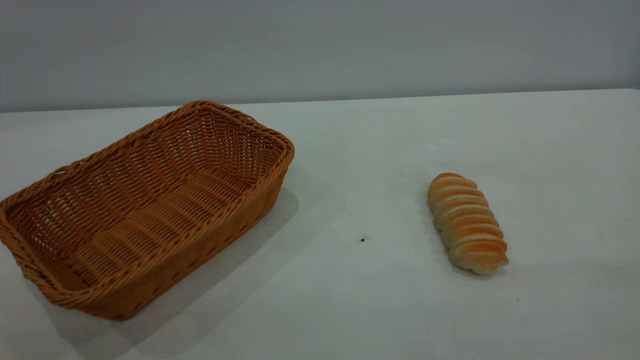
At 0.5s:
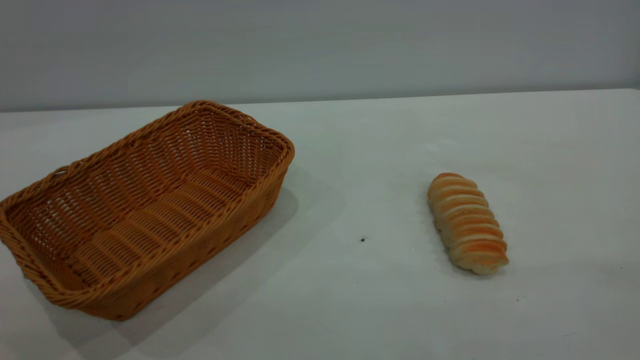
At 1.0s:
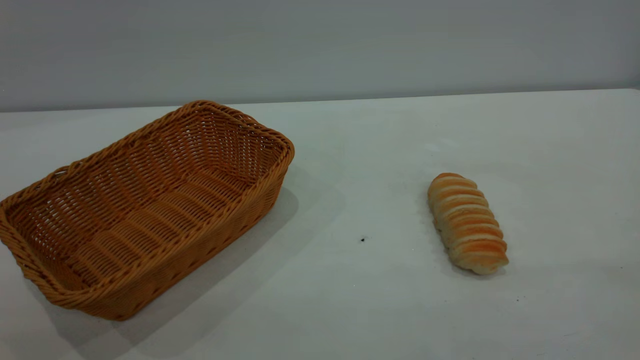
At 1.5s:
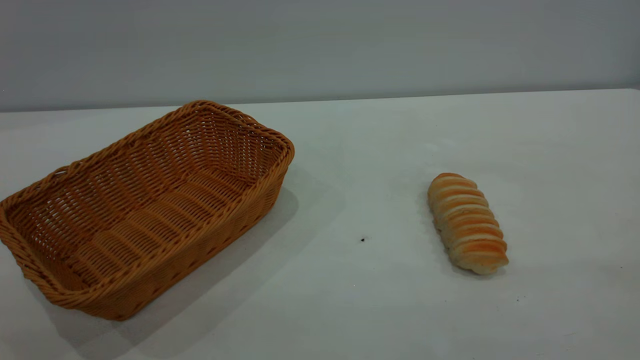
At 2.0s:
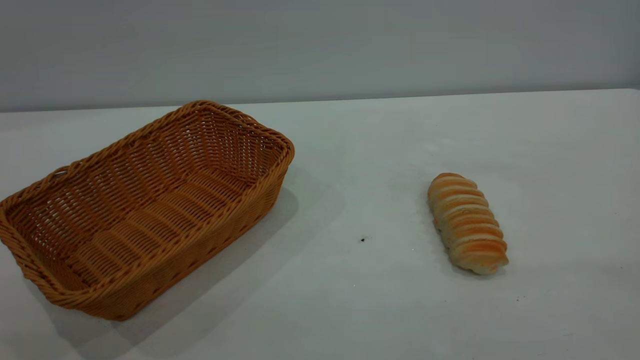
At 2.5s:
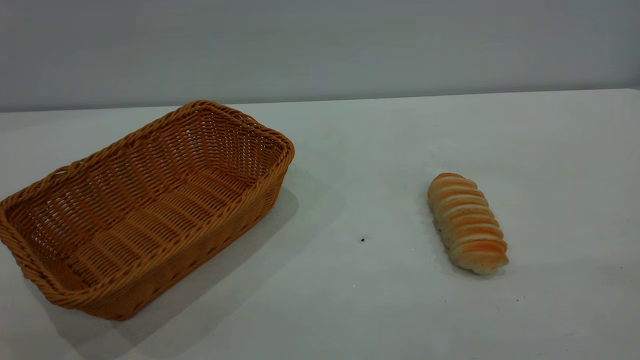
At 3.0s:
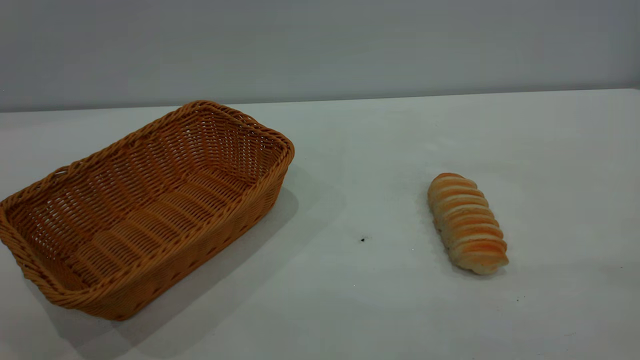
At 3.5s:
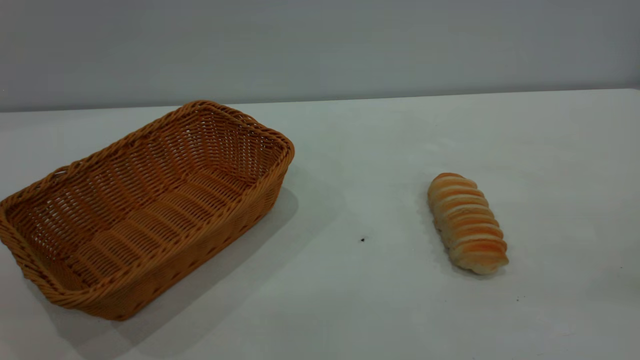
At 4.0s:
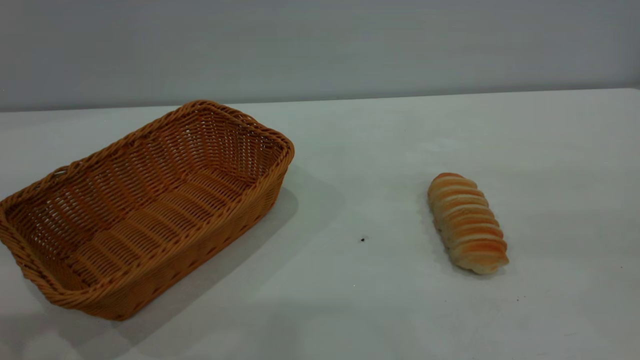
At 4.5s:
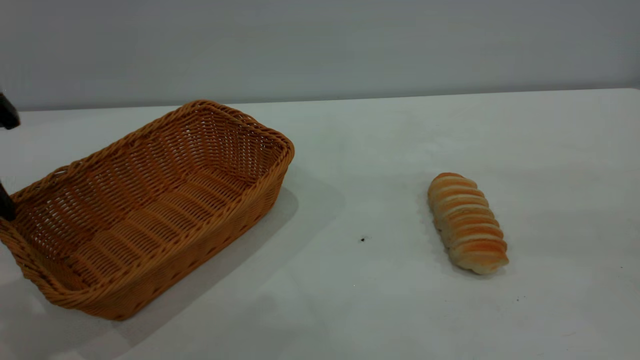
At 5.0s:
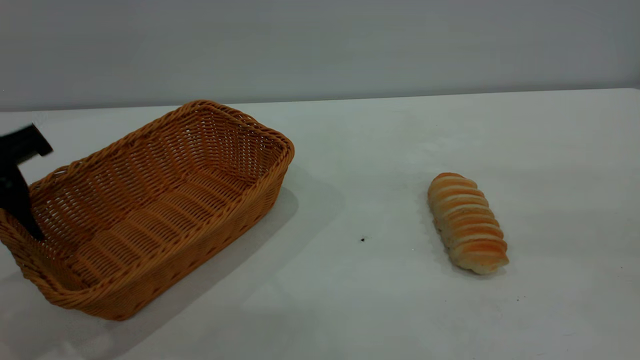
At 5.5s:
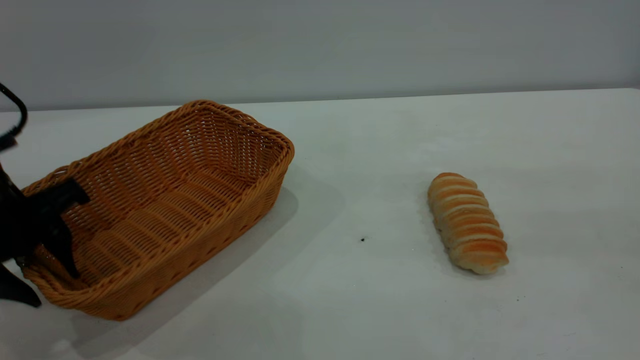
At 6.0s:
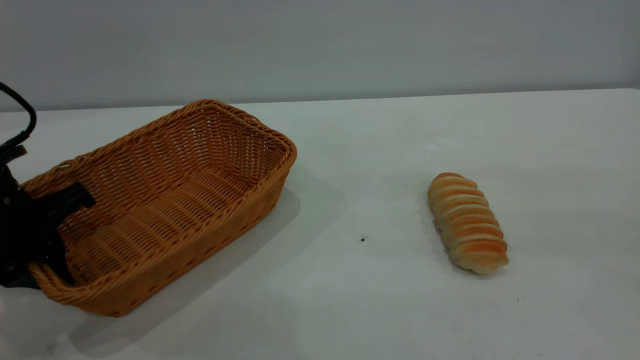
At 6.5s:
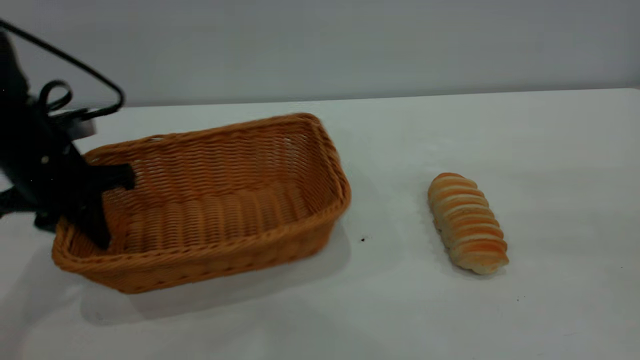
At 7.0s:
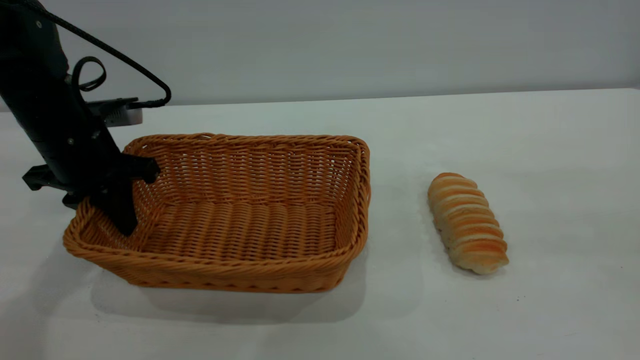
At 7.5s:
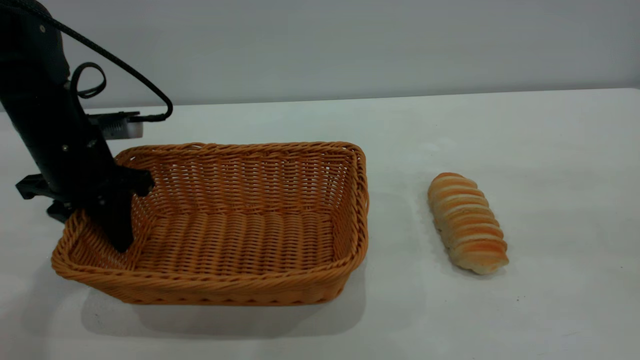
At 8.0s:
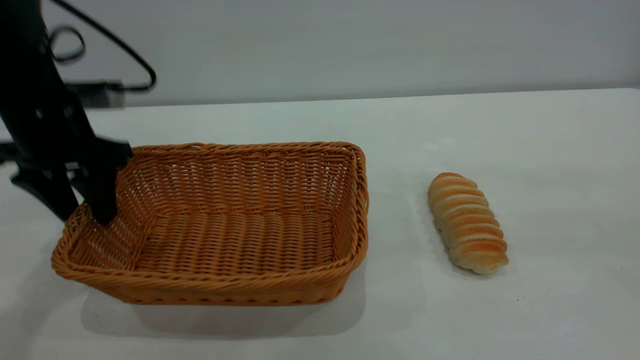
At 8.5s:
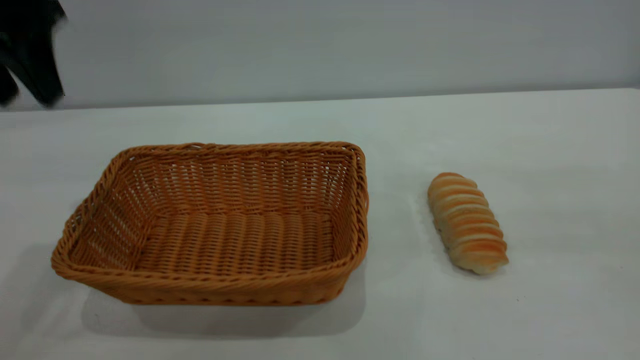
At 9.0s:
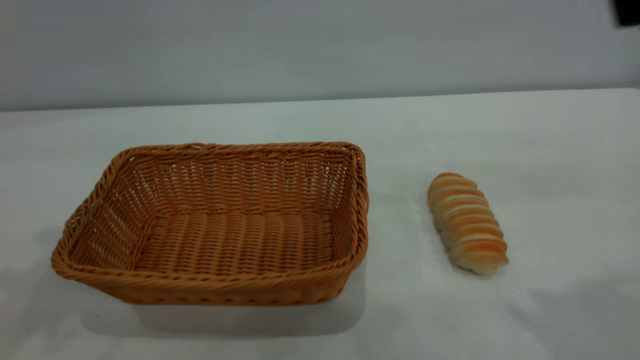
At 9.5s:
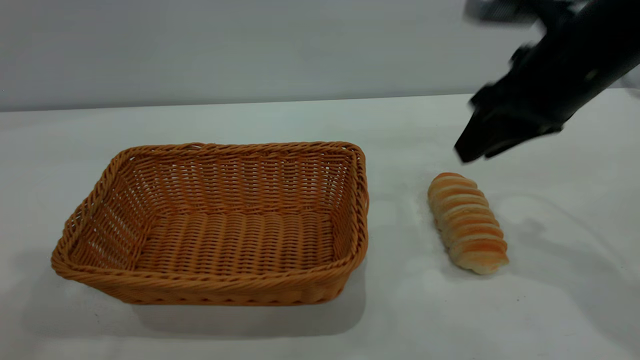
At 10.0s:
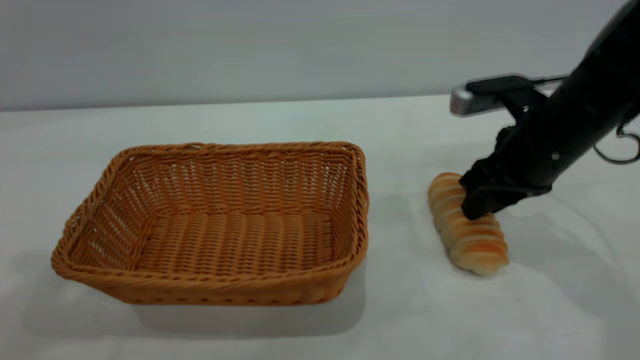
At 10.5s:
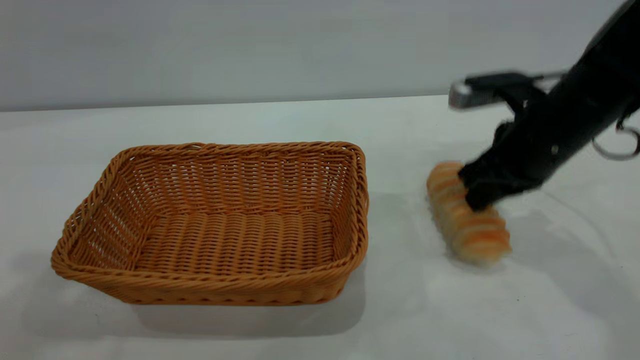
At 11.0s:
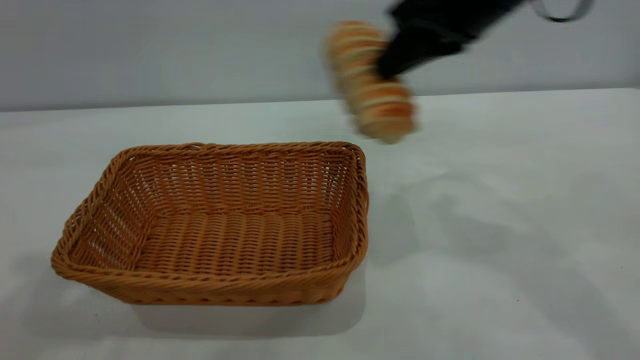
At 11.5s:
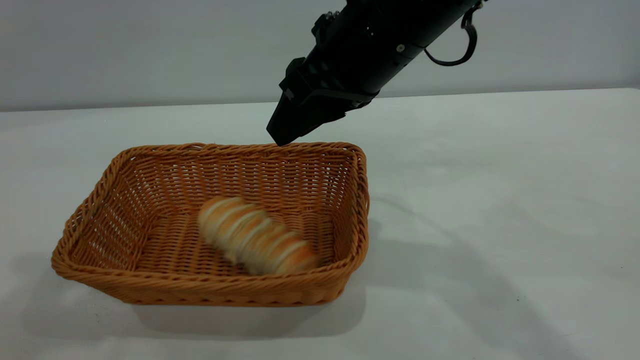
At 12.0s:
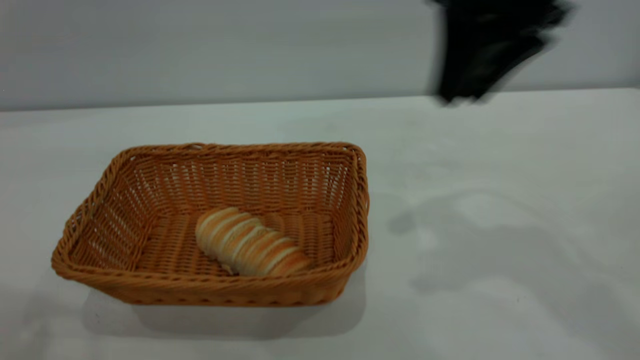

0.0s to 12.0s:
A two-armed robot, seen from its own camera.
Task of the whole recording: One hand grasps the yellow basket and places it in the middle of the table, while the other hand picks up the long bread and puts it into the yellow basket.
Step, 0.0s to 8.0s: Move the basket to the center of view.
Step, 11.0s to 11.5s: place the bread into the basket.
0.0s to 2.0s: Both grippers stay put.
4.0s to 6.0s: The left gripper is displaced downward and forward by about 20 cm, and closes.
6.0s to 8.0s: The left gripper is displaced forward and upward by roughly 10 cm, and opens up.
8.0s to 10.0s: The left gripper goes roughly 30 cm upward and backward. The right gripper goes about 35 cm forward and downward.
10.0s to 12.0s: The left gripper moves about 5 cm, while the right gripper goes about 20 cm upward, and closes, then reopens.

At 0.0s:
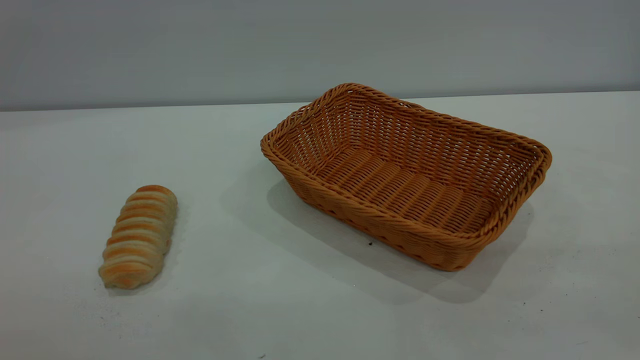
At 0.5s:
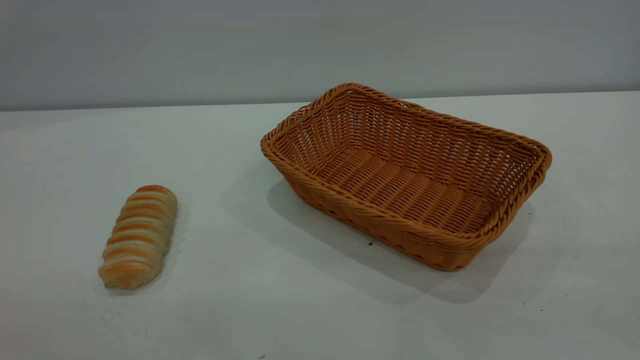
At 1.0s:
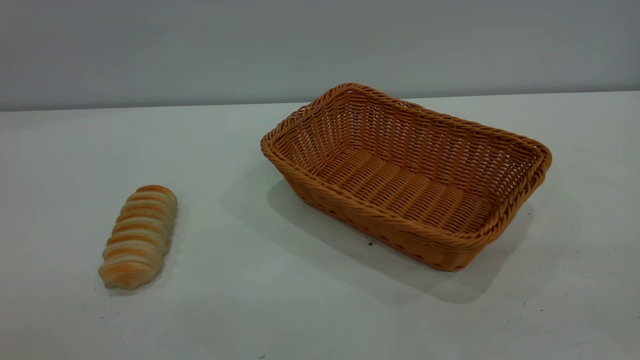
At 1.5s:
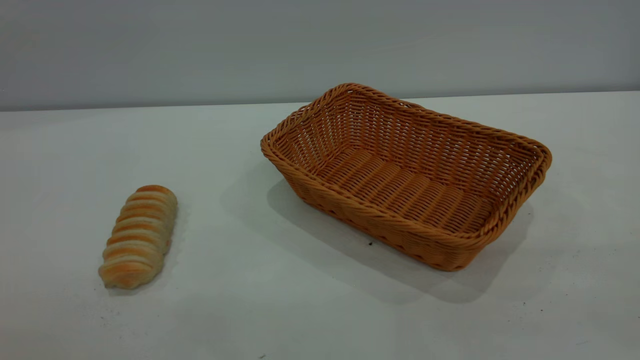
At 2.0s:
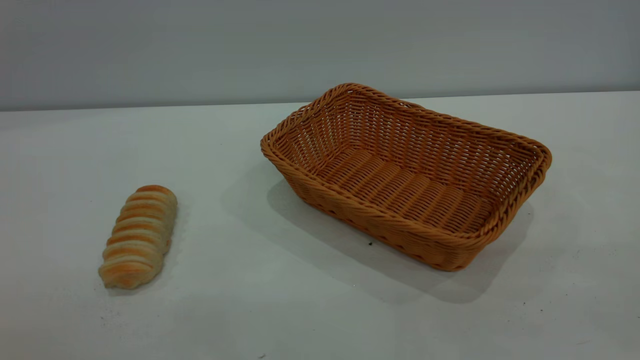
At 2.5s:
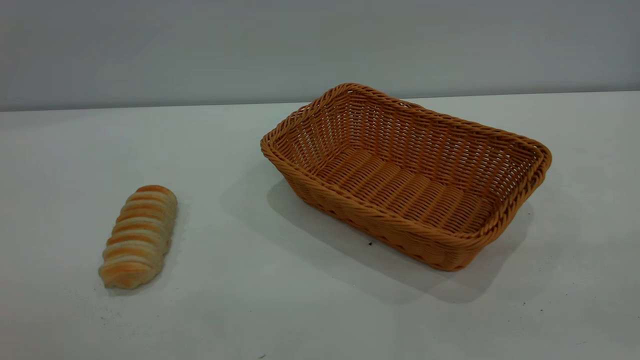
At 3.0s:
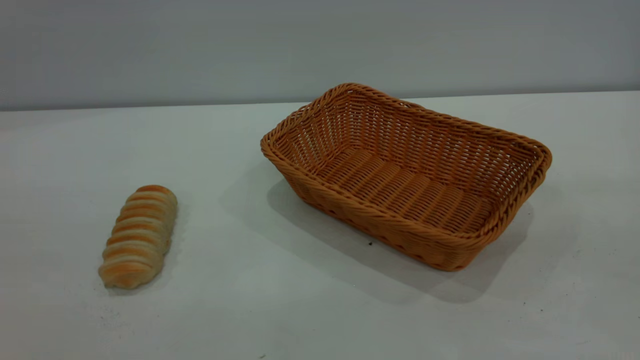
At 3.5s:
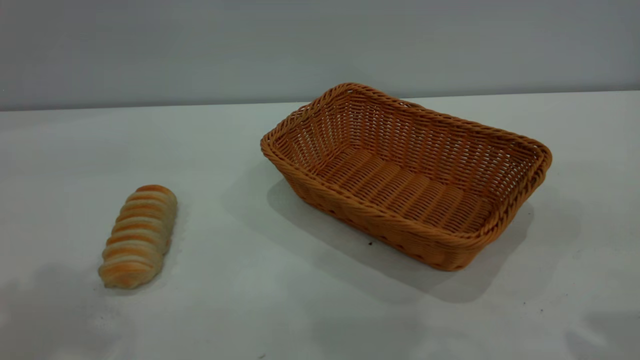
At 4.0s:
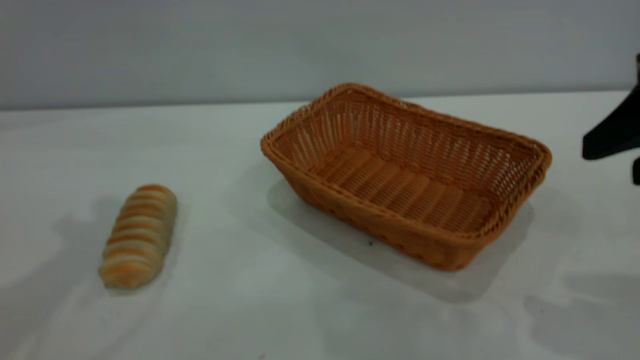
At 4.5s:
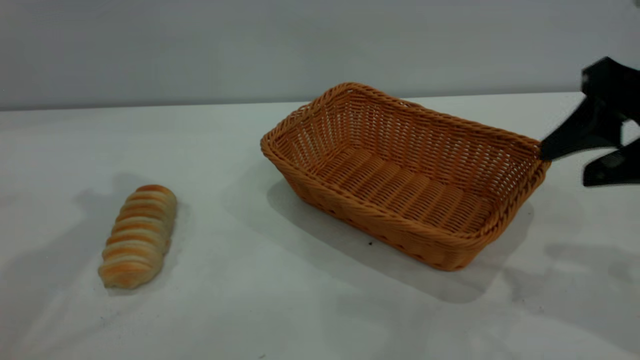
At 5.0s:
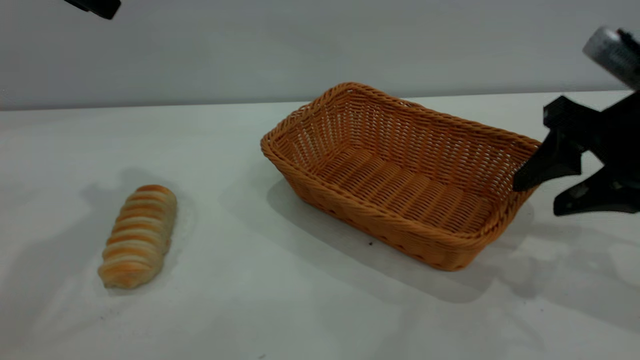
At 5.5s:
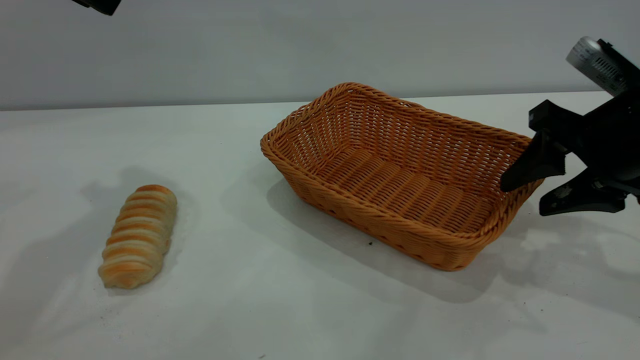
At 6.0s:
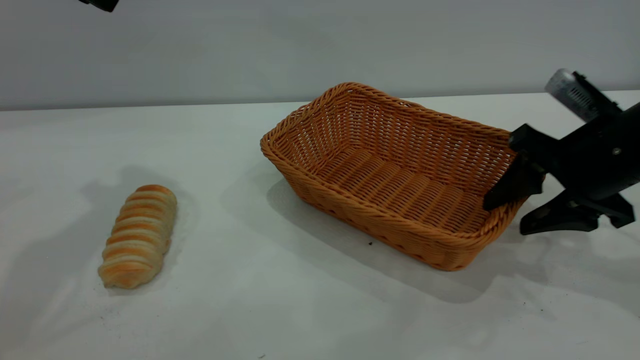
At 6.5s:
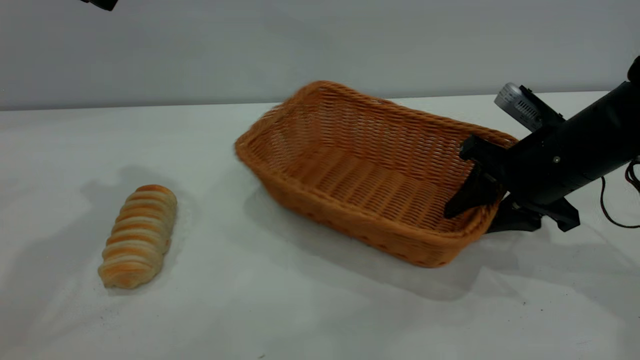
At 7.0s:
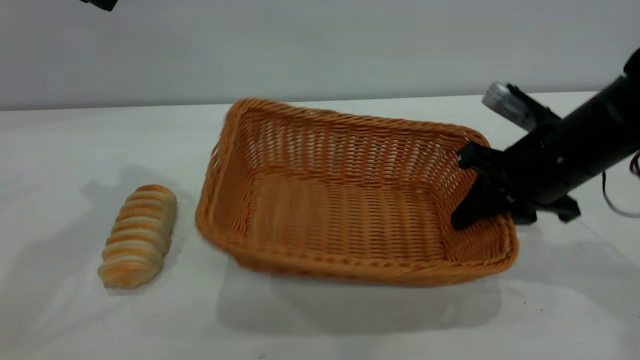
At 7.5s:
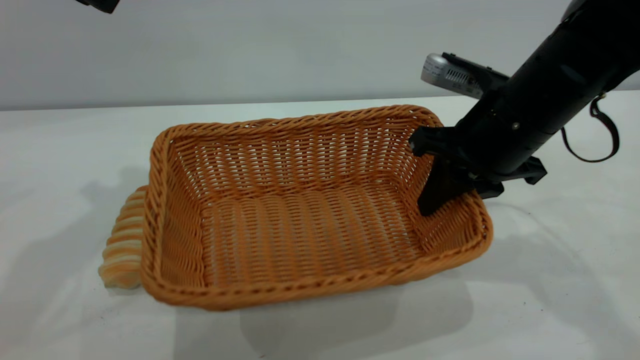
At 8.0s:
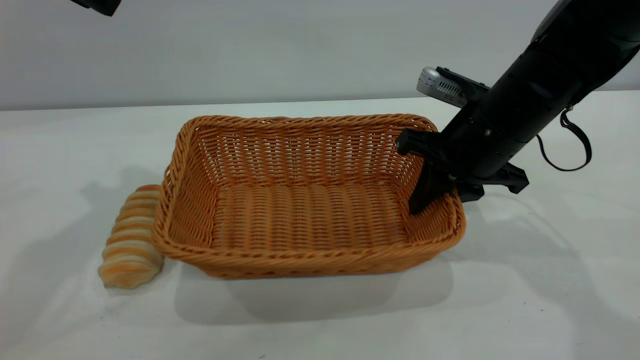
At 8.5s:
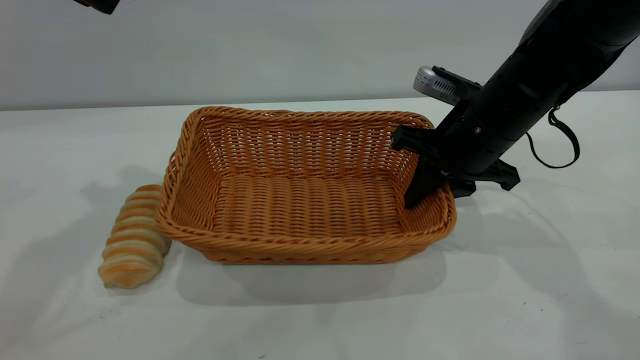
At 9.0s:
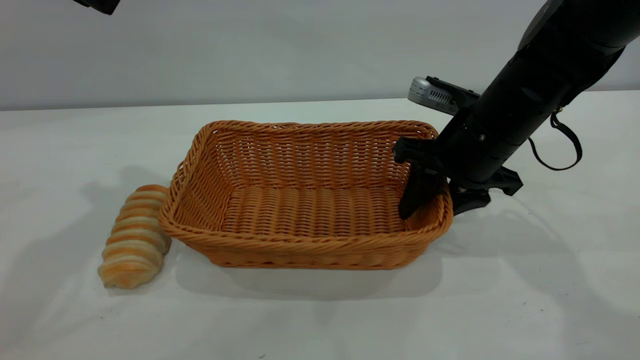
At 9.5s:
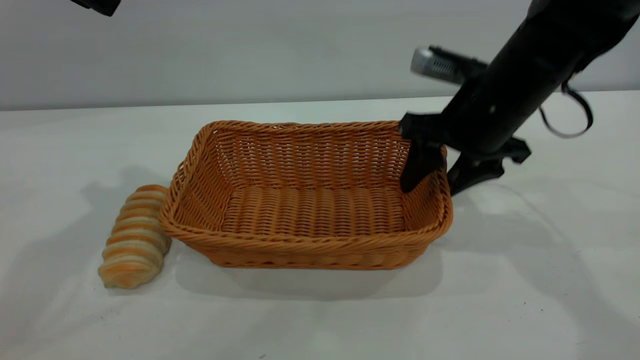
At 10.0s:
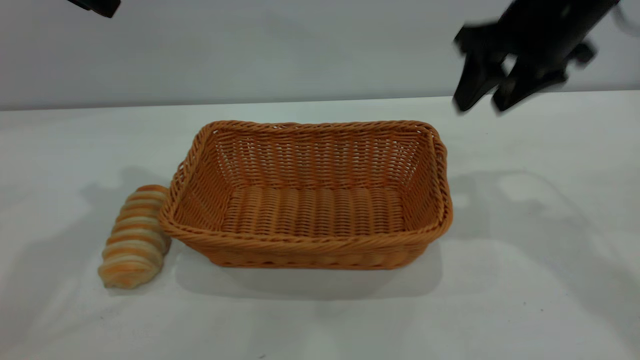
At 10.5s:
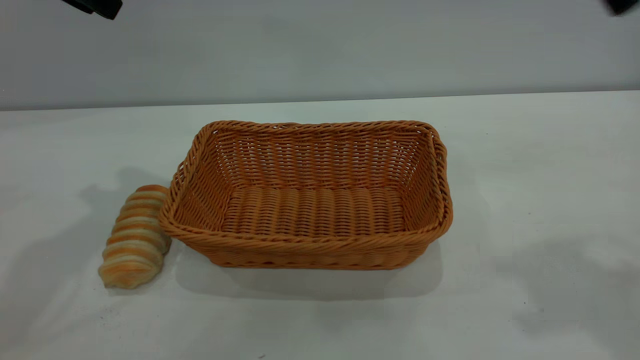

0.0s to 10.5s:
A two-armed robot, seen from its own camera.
Task of the whole recording: One hand grasps the yellow basket and places it in the middle of the table, while the other hand picks up the long bread and puts it into the yellow basket.
Step, 0.0s to 9.5s: Move the basket to the center of view.
0.0s to 2.0s: Both grippers stay put.
2.0s to 4.0s: The right gripper heads forward and downward, covering approximately 25 cm, and opens its fingers.
4.0s to 6.5s: The right gripper moves downward and forward, about 20 cm, and closes, while the left gripper shifts about 5 cm forward.
6.5s to 8.5s: The right gripper shifts roughly 5 cm to the left, and closes its fingers.
8.5s to 10.5s: The right gripper is displaced upward and backward by roughly 30 cm, and opens.
